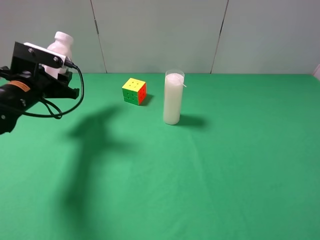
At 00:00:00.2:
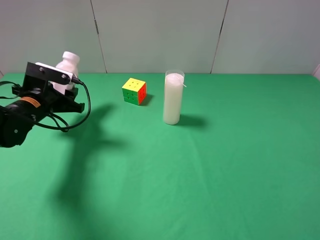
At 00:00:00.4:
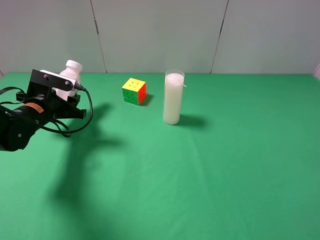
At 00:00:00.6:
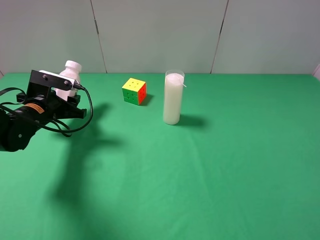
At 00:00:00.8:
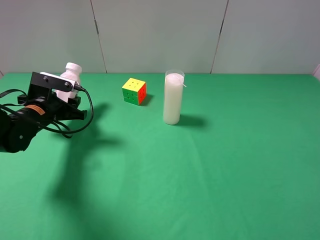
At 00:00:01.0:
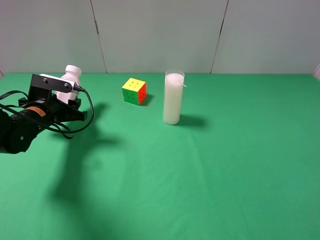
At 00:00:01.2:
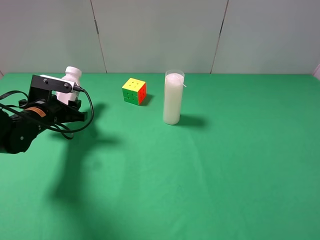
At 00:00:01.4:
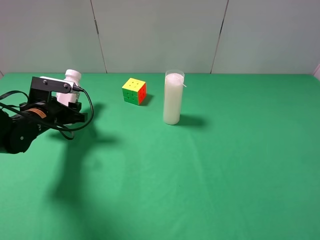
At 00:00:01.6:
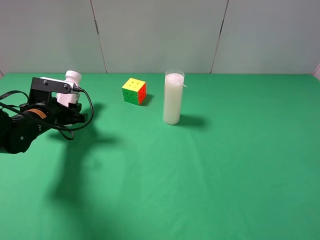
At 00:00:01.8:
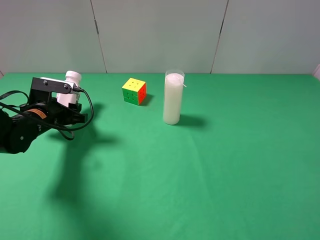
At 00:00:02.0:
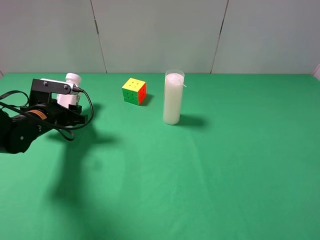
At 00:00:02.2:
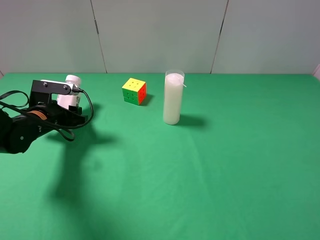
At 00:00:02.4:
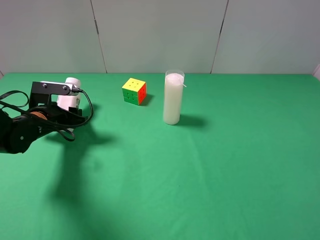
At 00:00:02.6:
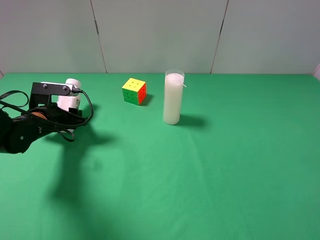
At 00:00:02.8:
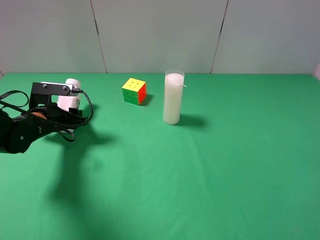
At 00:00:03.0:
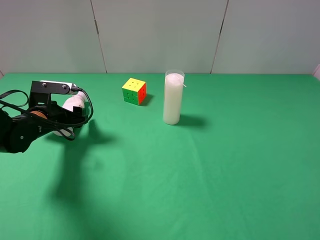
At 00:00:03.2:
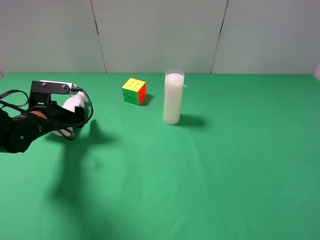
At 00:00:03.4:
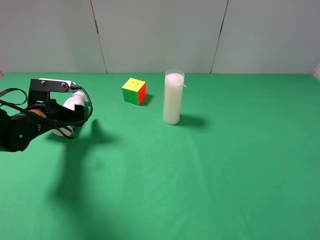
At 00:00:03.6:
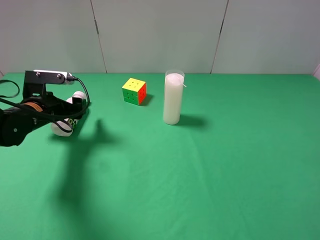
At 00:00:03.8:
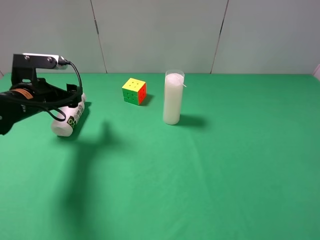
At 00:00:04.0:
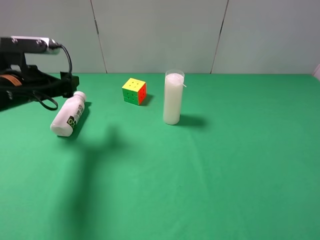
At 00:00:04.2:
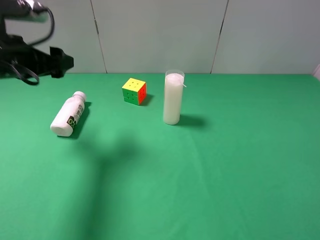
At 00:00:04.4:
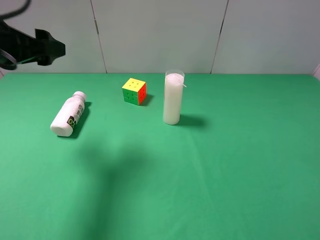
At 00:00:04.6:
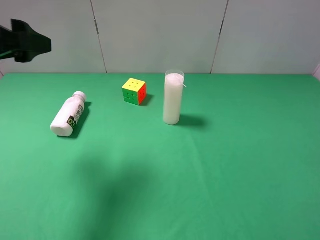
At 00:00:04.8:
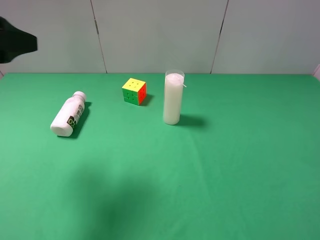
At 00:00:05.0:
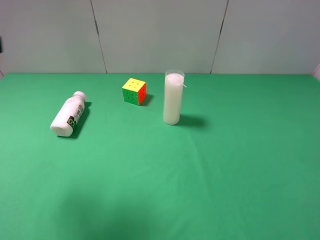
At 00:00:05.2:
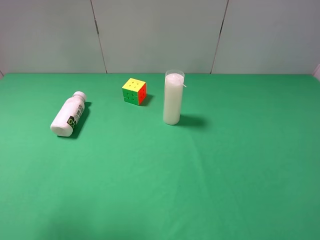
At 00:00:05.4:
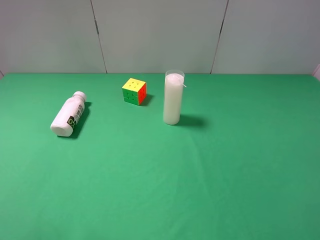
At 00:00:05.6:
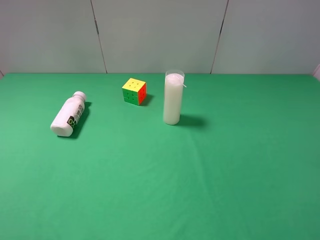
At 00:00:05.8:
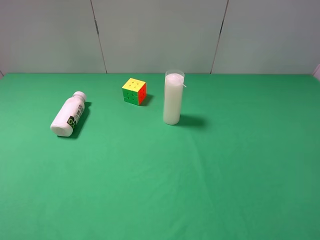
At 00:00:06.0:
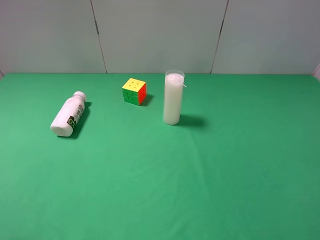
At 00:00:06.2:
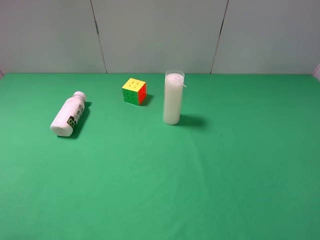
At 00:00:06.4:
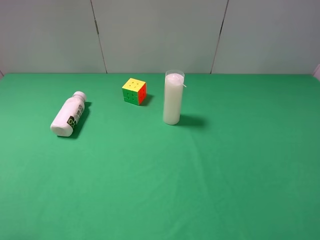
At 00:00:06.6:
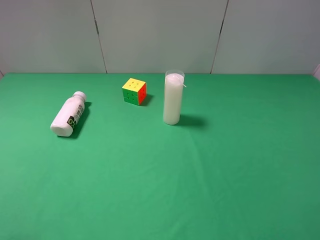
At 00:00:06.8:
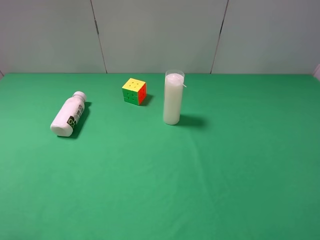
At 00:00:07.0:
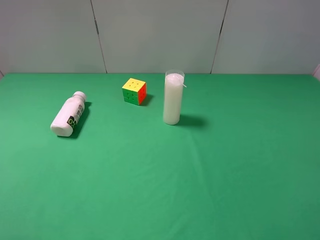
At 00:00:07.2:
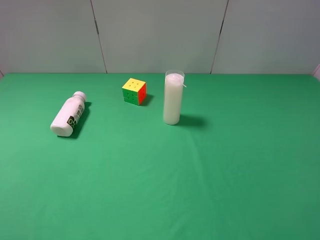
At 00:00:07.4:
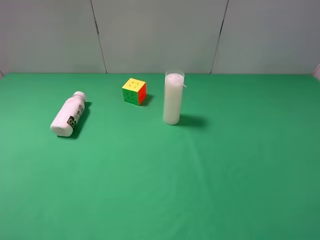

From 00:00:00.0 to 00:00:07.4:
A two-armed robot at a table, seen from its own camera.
Task of the whole recording: use the right gripper to pick up the item and transfer it from the right gripper to the left gripper.
Step, from 00:00:00.0 to 00:00:07.4: The left gripper places milk on the left side of the table.
From 00:00:00.0 to 00:00:01.4: The left gripper is displaced downward by roughly 5 cm.
From 00:00:01.4 to 00:00:03.0: The left gripper opens its fingers.
From 00:00:03.0 to 00:00:04.4: The left gripper shifts some 20 cm upward.
From 00:00:04.4 to 00:00:06.0: The left gripper heads backward, covering some 20 cm.
